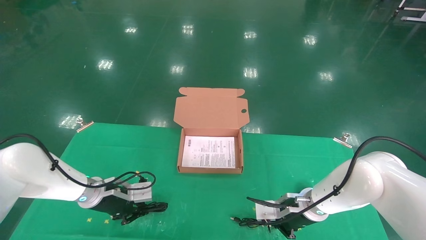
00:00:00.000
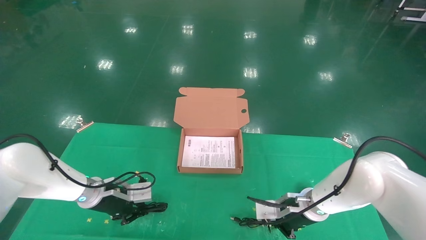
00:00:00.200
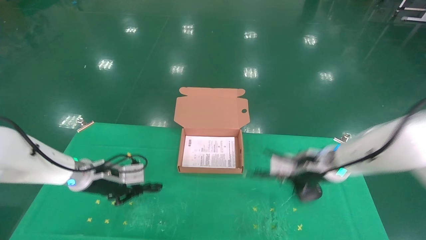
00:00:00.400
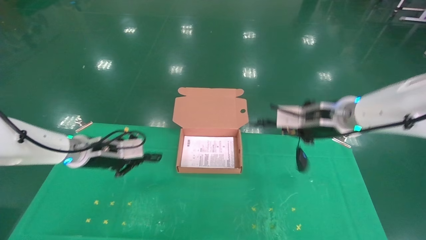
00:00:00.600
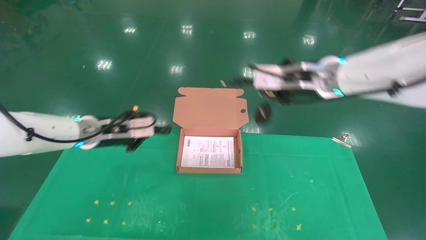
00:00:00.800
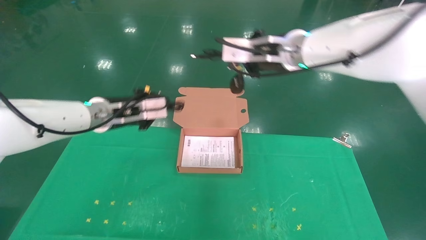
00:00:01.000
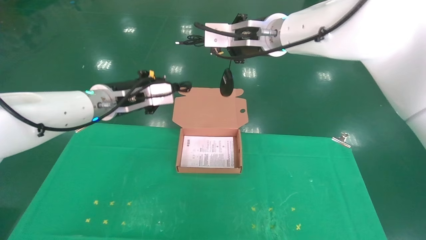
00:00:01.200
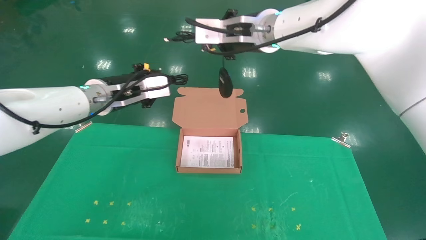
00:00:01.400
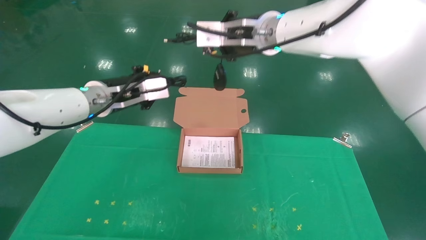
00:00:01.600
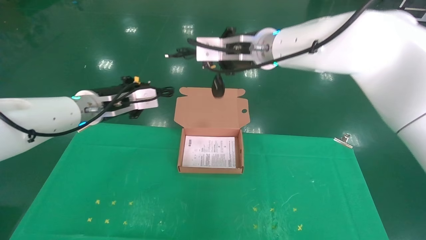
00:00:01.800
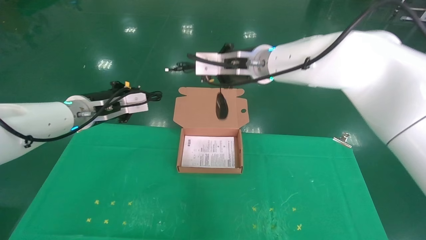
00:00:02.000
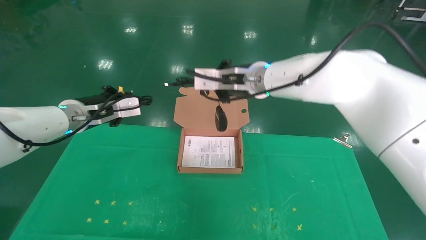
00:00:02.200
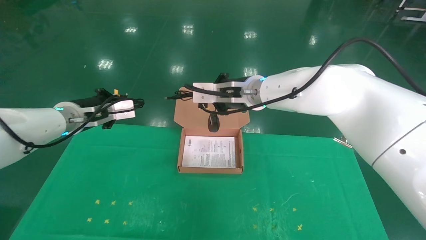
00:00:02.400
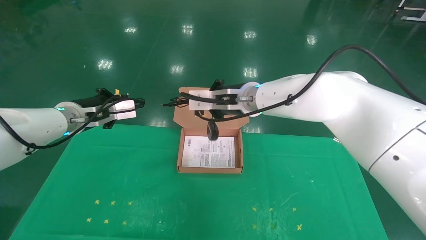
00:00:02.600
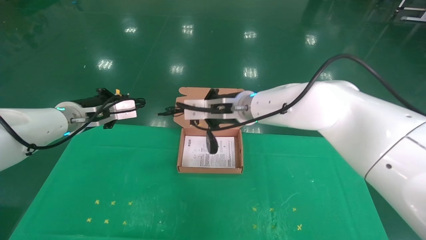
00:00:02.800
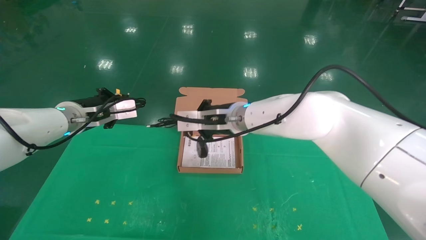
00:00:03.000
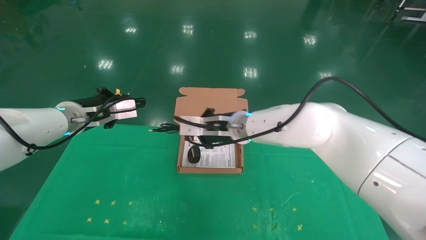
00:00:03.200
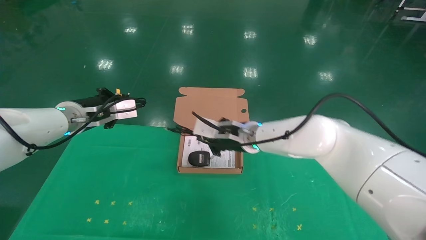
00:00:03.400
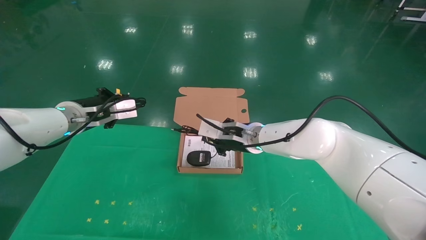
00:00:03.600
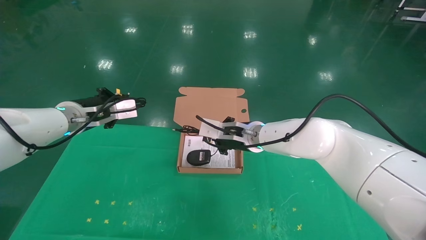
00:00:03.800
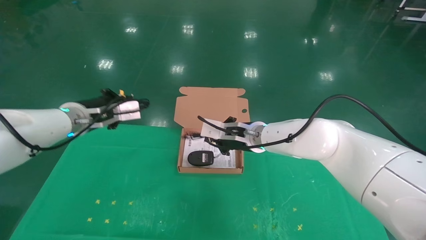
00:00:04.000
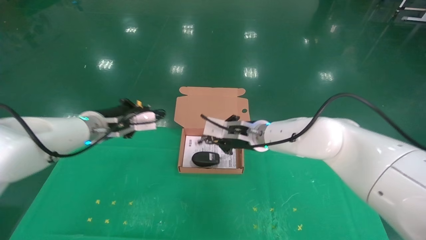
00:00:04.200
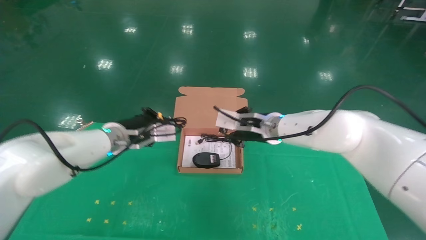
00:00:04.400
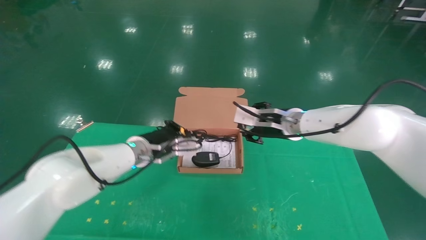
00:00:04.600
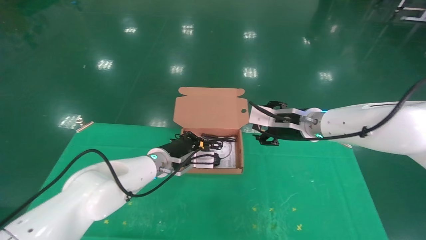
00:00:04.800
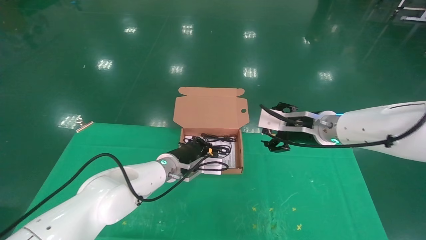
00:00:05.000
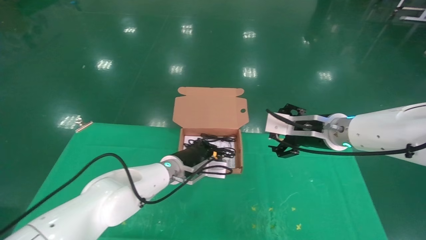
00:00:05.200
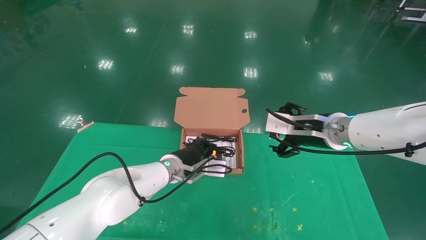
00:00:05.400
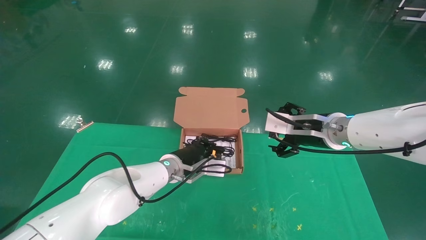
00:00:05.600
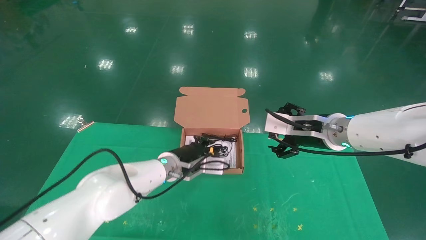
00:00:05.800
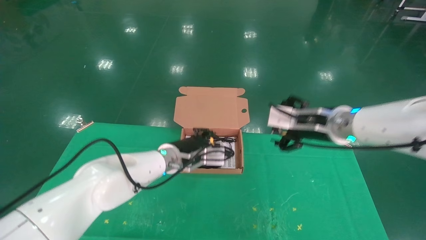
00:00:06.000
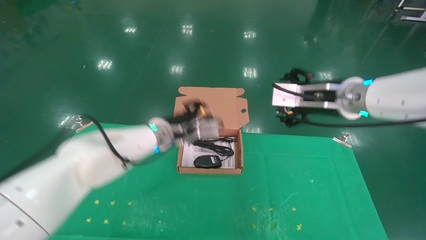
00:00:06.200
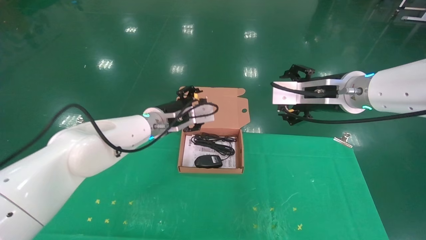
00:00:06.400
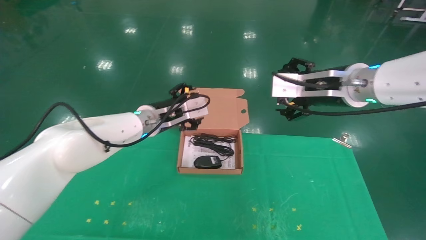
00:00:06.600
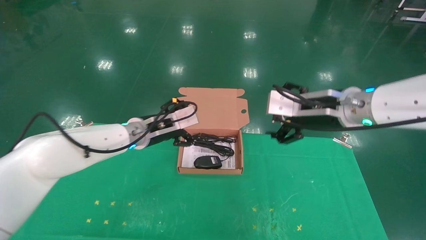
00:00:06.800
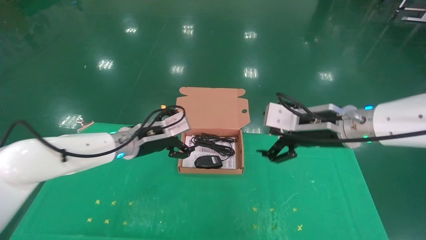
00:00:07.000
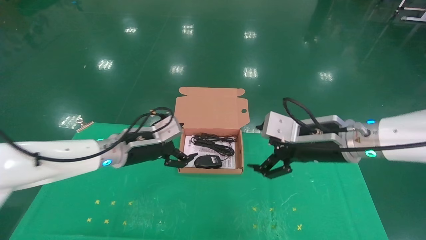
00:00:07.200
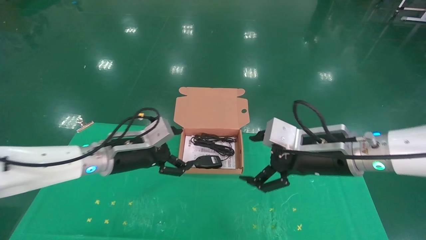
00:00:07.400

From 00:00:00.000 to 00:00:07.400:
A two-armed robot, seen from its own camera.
Task of the whole recording: grasp data cable left put into box grasp mouse right put into box.
Step, from 00:00:00.600 to 00:00:06.000: Place the mouse and power cord into the box.
From 00:00:00.000 to 00:00:01.400: The left gripper moves upward, about 20 cm. The right gripper travels upward by some 35 cm.
From 00:00:01.400 to 00:00:03.000: The left gripper heads to the left, covering roughly 10 cm, while the right gripper travels downward by approximately 15 cm.
From 00:00:03.000 to 00:00:04.400: The right gripper moves to the right, some 10 cm. Meanwhile the left gripper heads to the right and downward, covering about 10 cm.
From 00:00:04.400 to 00:00:06.000: The left gripper is displaced to the right by approximately 10 cm, while the right gripper shifts about 10 cm to the right and backward, and opens.
From 00:00:06.000 to 00:00:07.400: The right gripper moves backward, about 5 cm, while the left gripper heads to the left and backward, covering roughly 10 cm, and opens up.
